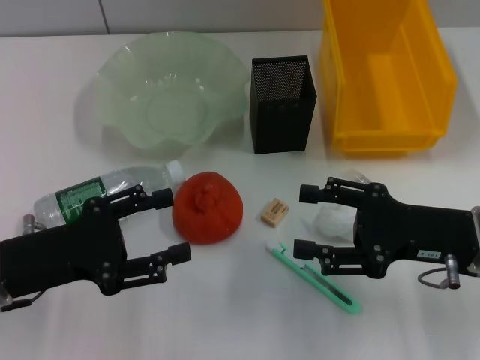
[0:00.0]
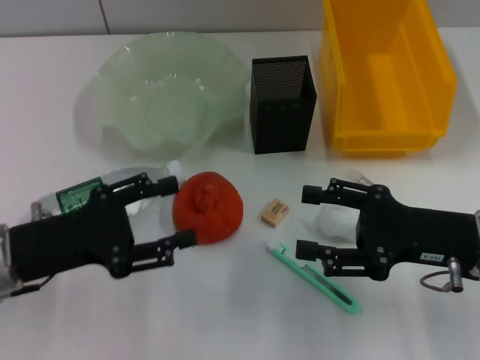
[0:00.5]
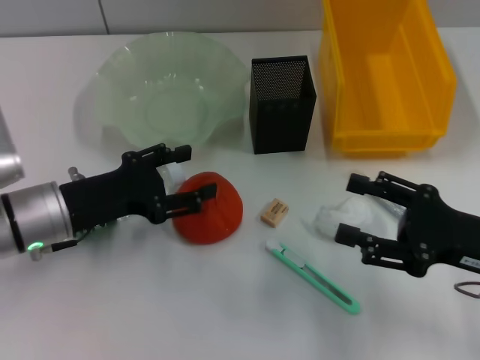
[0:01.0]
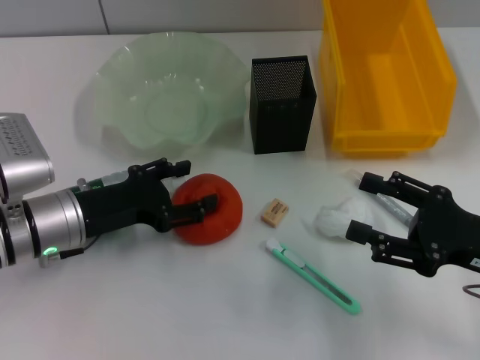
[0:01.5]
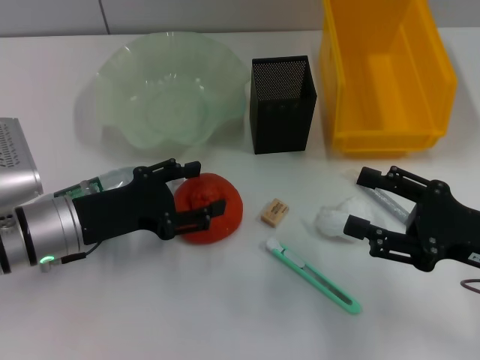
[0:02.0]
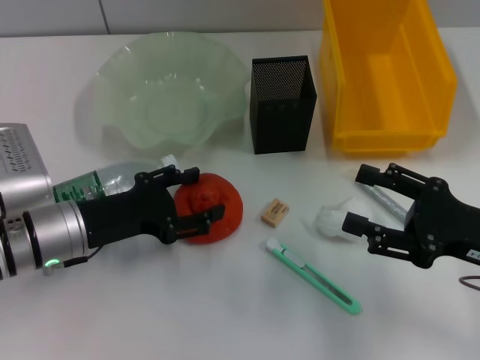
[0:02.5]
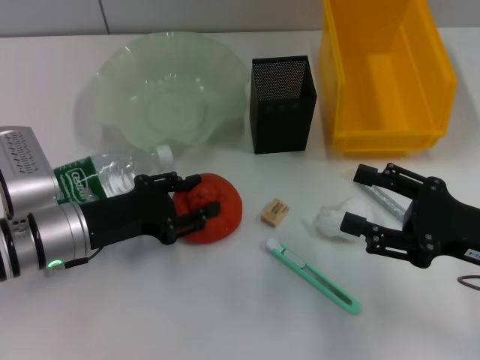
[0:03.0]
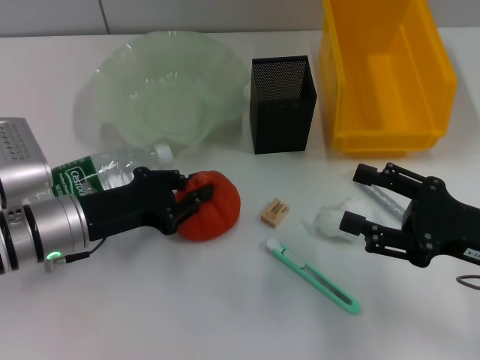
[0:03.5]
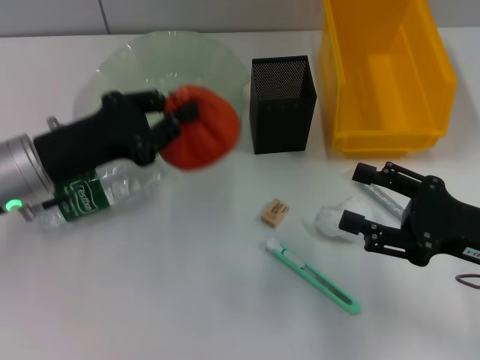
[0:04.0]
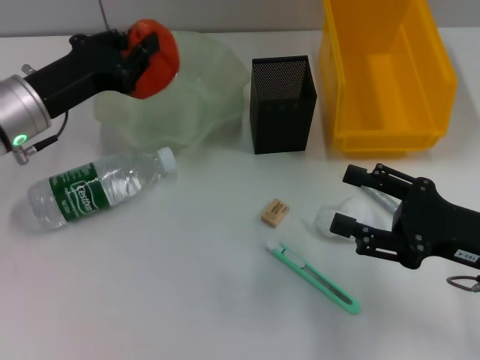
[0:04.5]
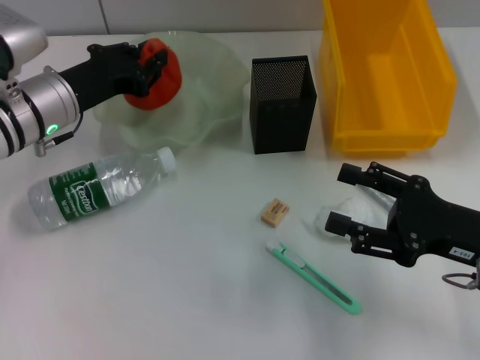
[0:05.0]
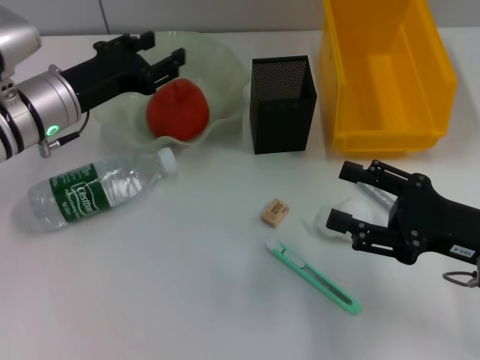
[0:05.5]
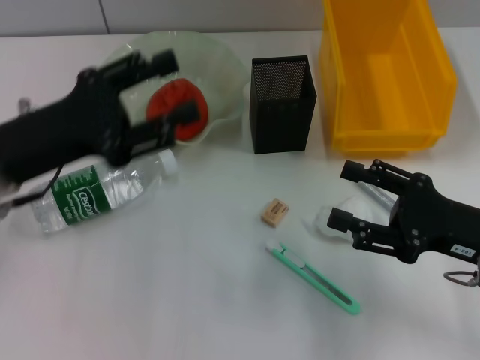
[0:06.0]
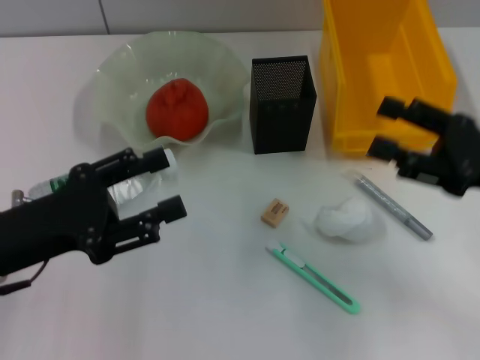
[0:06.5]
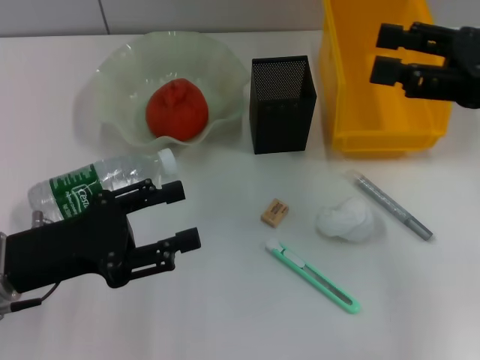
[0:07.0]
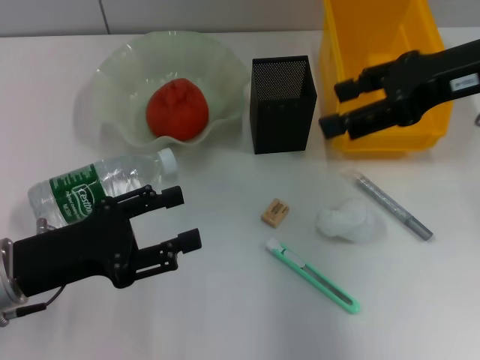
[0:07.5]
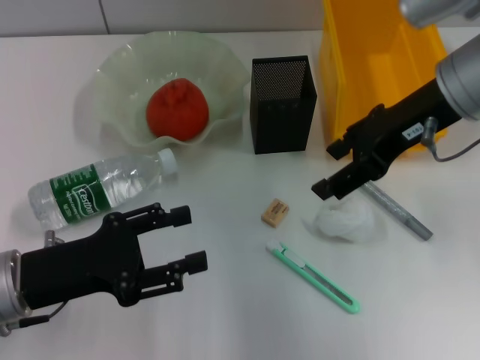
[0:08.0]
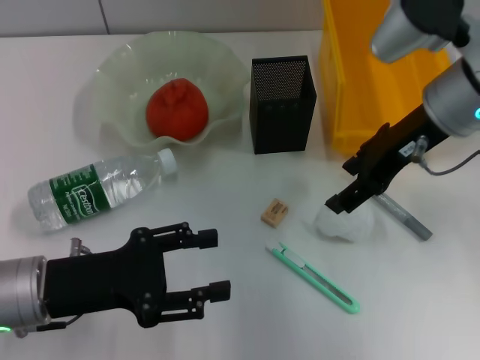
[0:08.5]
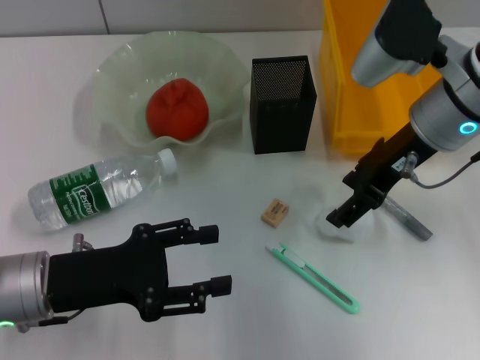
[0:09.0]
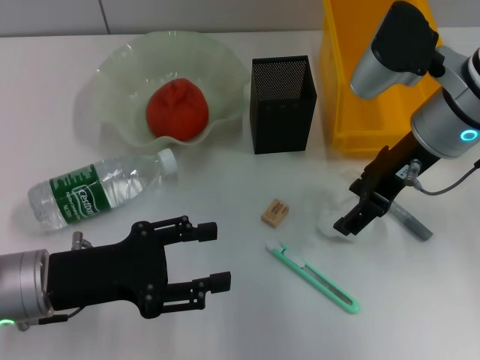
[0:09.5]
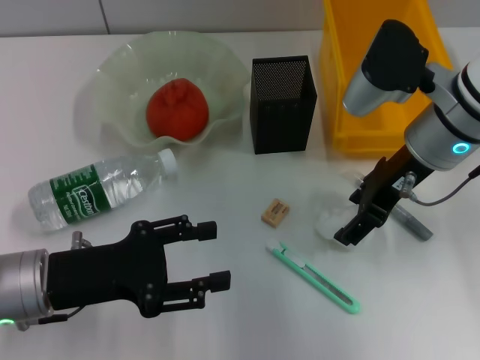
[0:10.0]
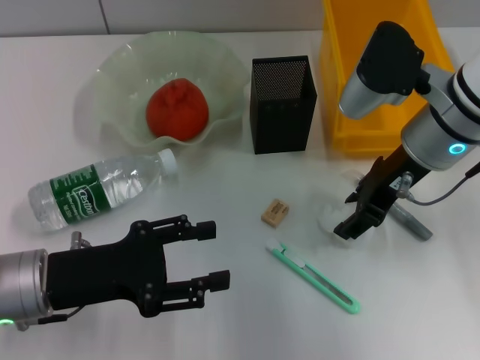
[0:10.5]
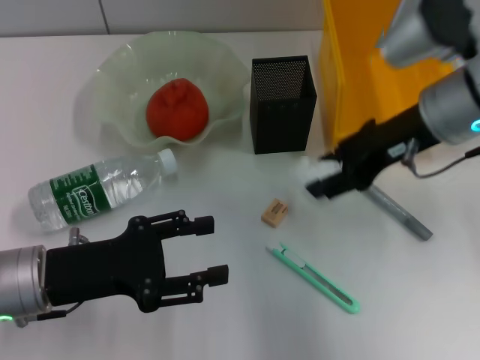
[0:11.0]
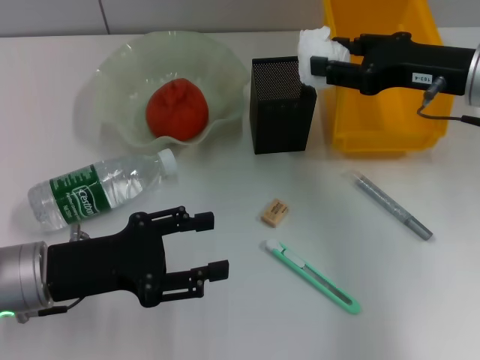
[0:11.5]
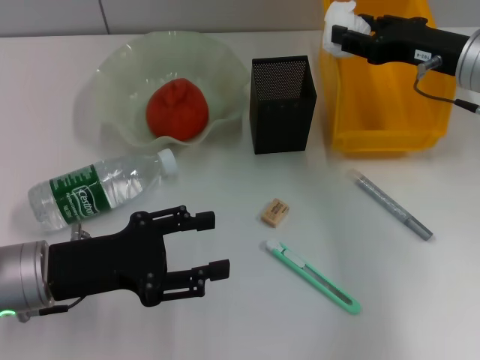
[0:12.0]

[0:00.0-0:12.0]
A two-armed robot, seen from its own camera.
Step, 0:00.0 to 0:03.0: Grab the orange with the left hand.
Step, 0:03.5 to 0:05.0: Place the orange into the fruit bowl with the left hand.
Step, 0:05.5 to 0:10.0: Grab the paper ball with the right hand.
0:00.0 to 0:02.0: The left gripper shifts approximately 5 cm forward.
0:02.0 to 0:04.0: The left gripper moves upward, roughly 5 cm, and closes its fingers.
0:04.0 to 0:06.0: The left gripper moves some 10 cm forward and comes back, and opens up.
0:06.0 to 0:08.0: The right gripper heads upward, forward and to the left, covering some 20 cm; the left gripper is displaced downward and backward by roughly 10 cm.
0:08.0 to 0:10.0: The right gripper heads downward, covering roughly 5 cm.
0:10.0 to 0:12.0: The right gripper heads to the right, covering about 5 cm, and closes its fingers.

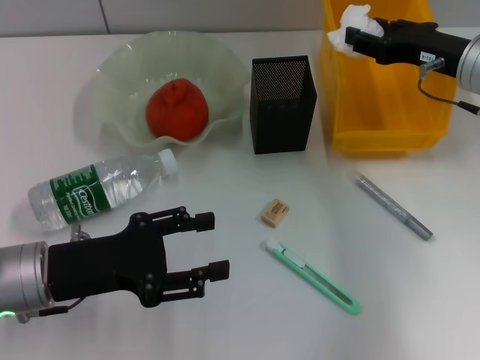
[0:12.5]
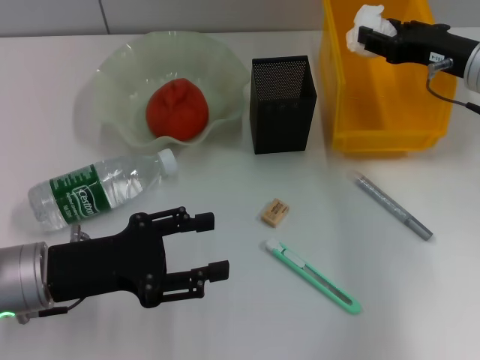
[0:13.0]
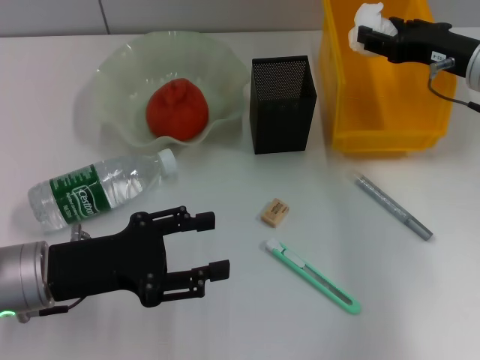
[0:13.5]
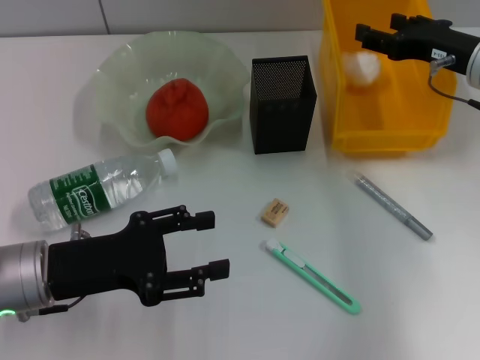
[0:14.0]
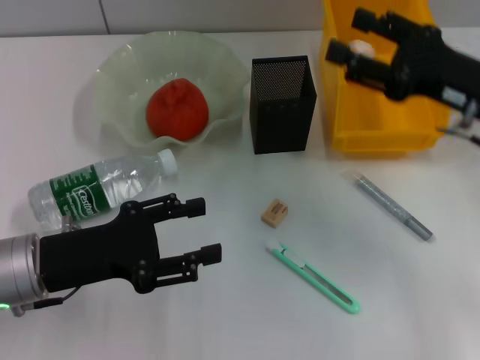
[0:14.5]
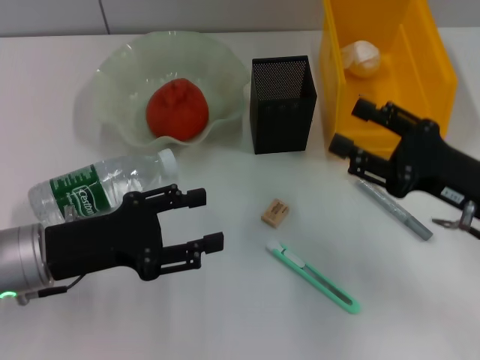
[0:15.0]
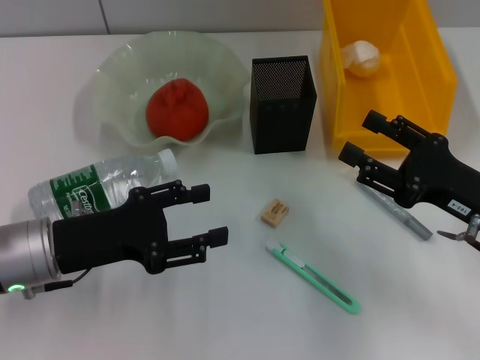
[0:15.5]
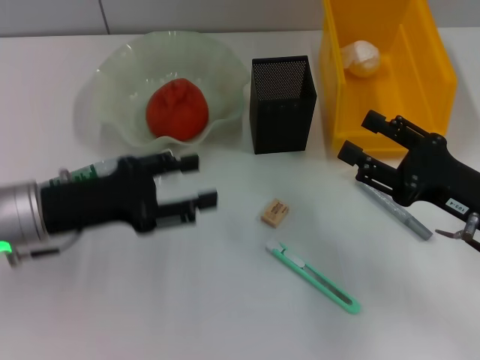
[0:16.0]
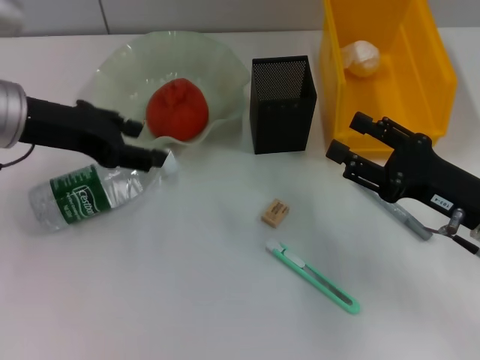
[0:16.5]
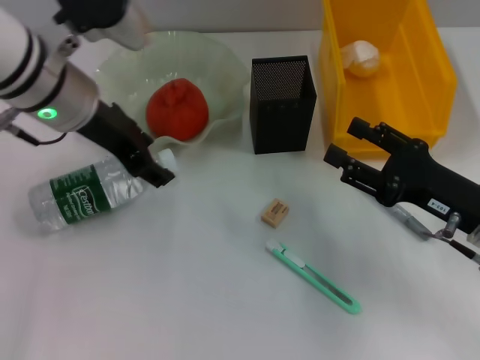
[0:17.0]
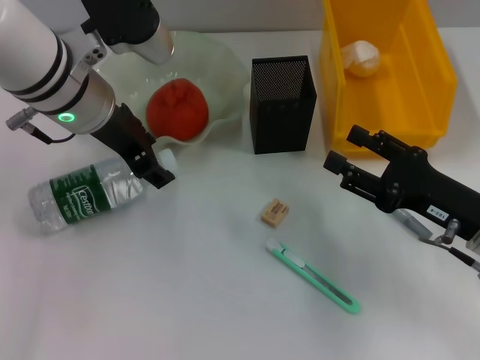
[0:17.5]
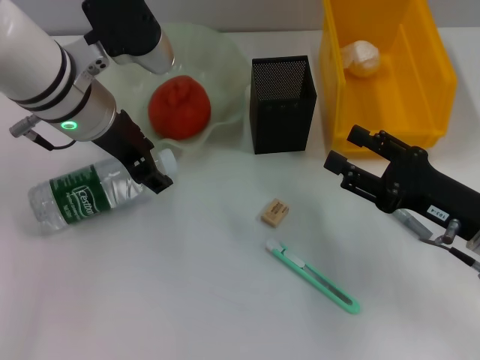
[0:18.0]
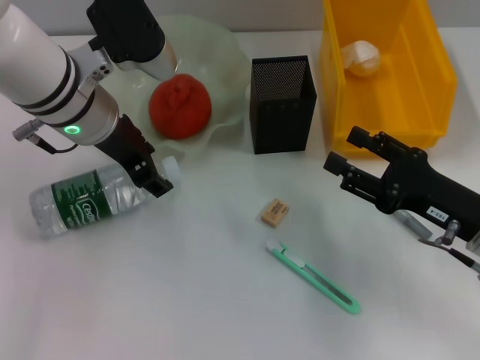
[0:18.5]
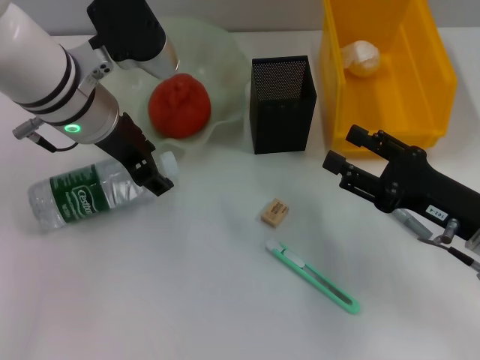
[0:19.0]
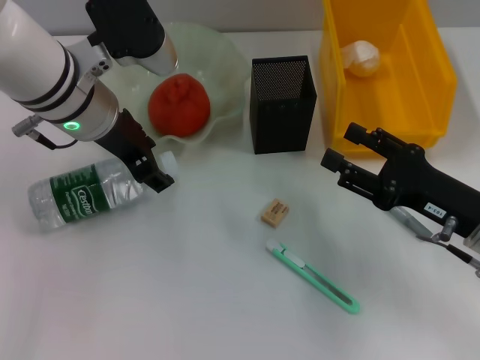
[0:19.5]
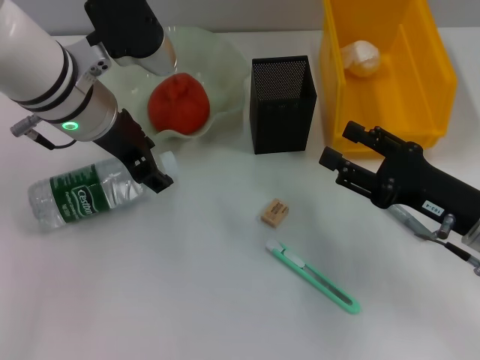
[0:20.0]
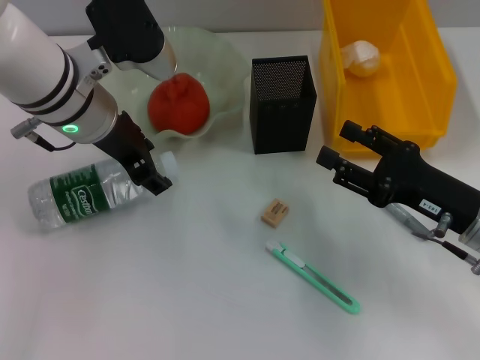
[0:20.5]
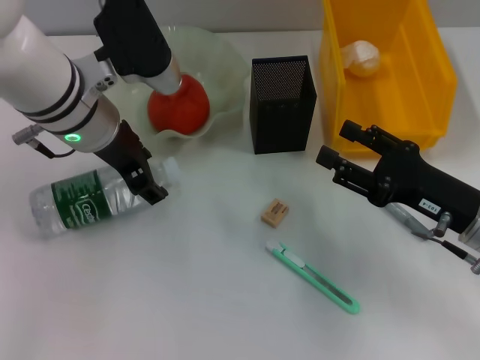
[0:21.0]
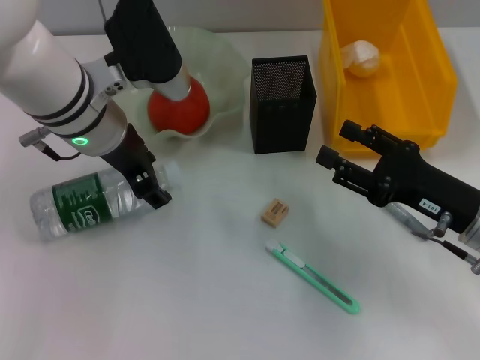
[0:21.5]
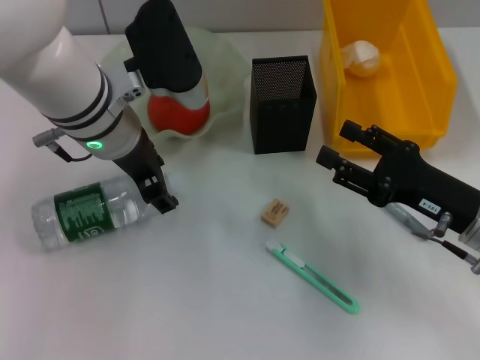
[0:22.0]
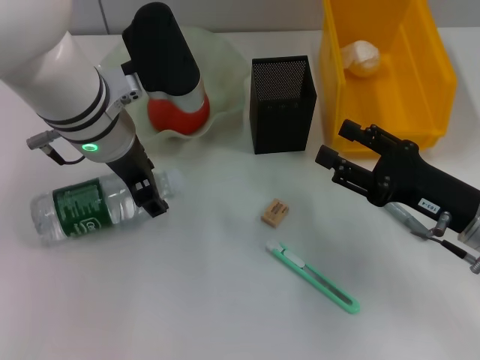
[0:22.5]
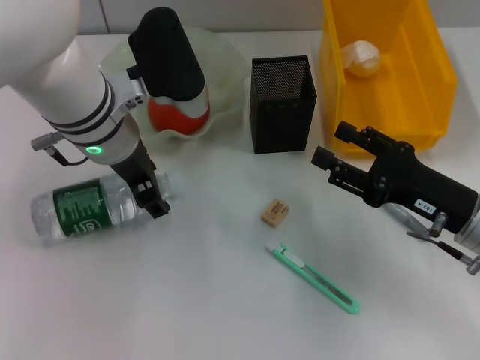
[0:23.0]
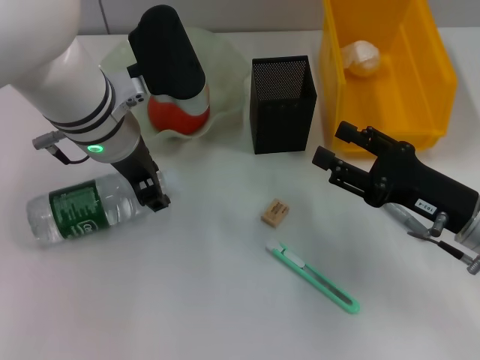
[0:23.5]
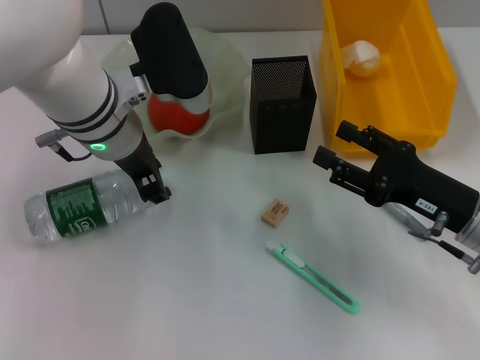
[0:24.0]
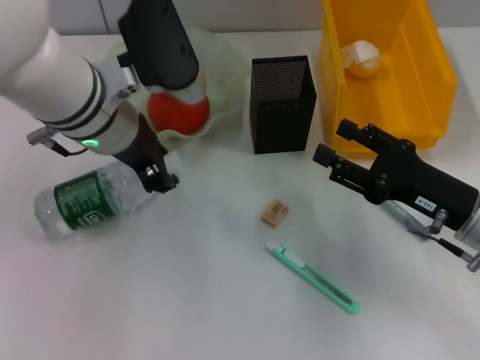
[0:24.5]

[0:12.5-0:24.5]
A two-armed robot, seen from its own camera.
Step, 0:14.5 to 0:24.0: Grab the water bottle with the left hand.
0:12.5 to 0:14.5: The right gripper heads backward, covering approximately 10 cm.
0:14.5 to 0:16.5: The right gripper heads downward, covering approximately 10 cm, while the left gripper heads upward and forward, covering about 15 cm.
0:16.5 to 0:18.5: The left gripper travels to the right by approximately 10 cm.
0:18.5 to 0:20.5: The two grippers keep their place.
0:20.5 to 0:22.5: The grippers make only small movements.
0:22.5 to 0:24.5: The left gripper closes its fingers.

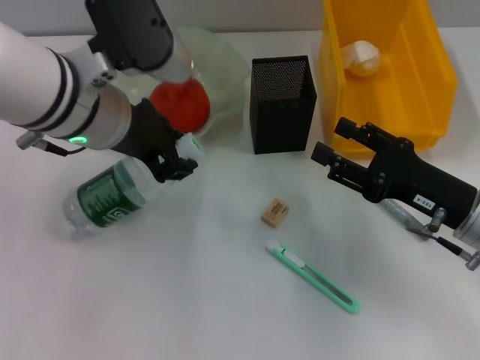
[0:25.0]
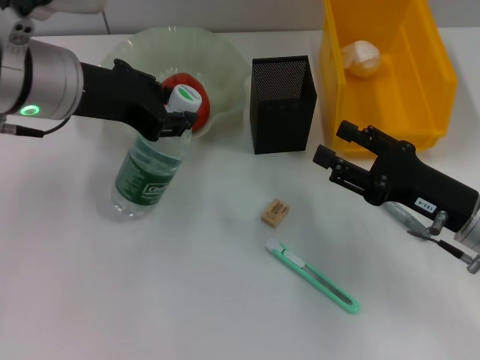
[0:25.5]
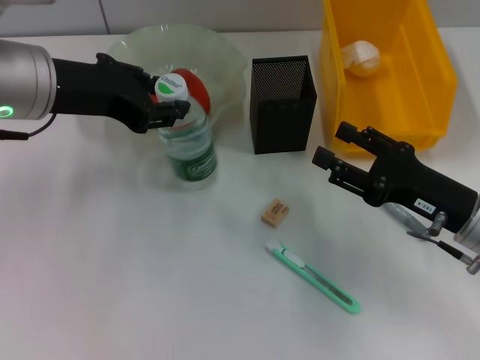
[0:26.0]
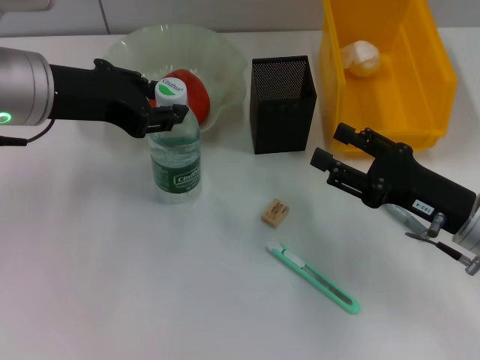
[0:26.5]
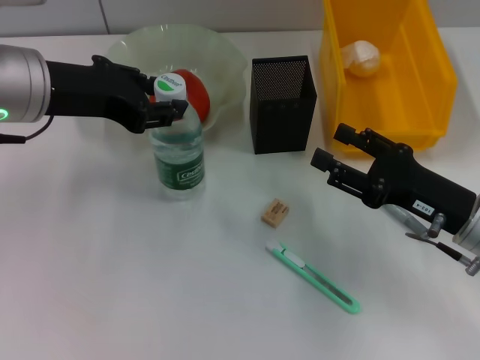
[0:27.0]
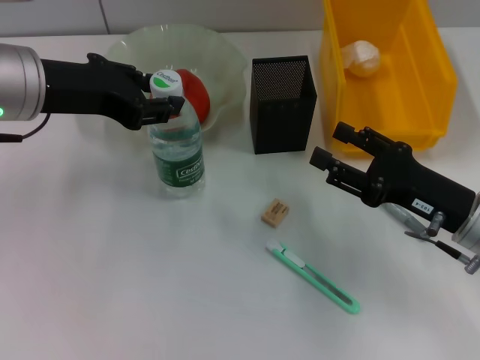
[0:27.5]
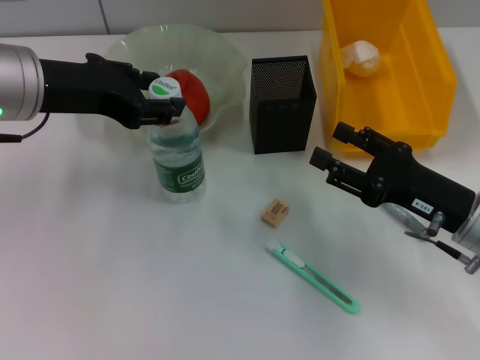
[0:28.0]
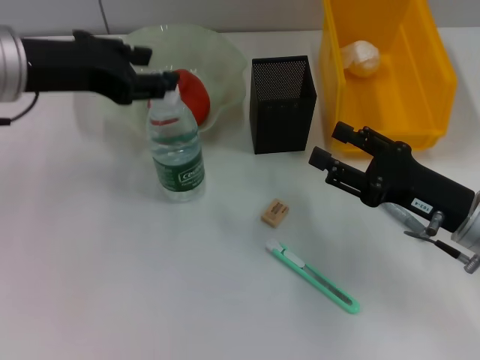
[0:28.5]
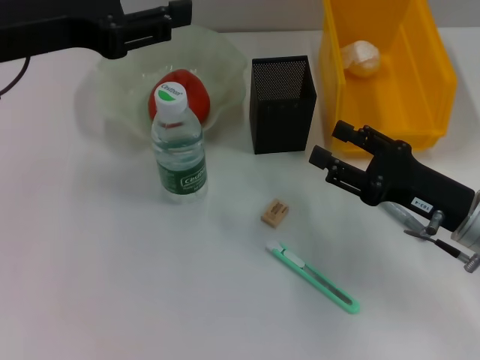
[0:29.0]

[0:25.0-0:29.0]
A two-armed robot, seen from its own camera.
Step, 0:25.0 to 0:28.5: Place the water bottle on the table with the left hand.
0:25.0 to 0:27.0: The left gripper travels to the left by approximately 5 cm.
0:27.0 to 0:29.0: The left gripper opens its fingers.
